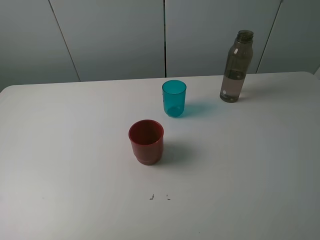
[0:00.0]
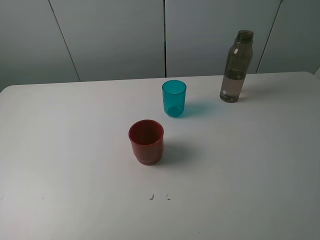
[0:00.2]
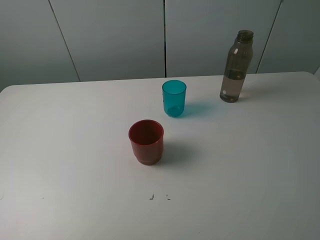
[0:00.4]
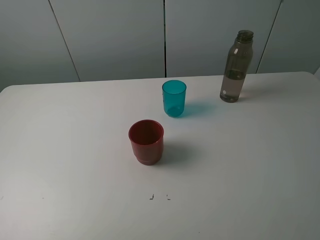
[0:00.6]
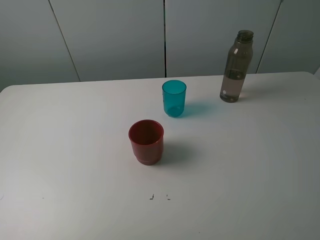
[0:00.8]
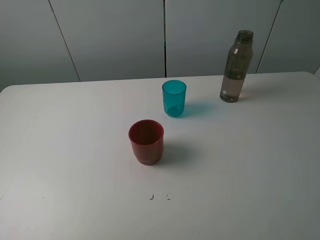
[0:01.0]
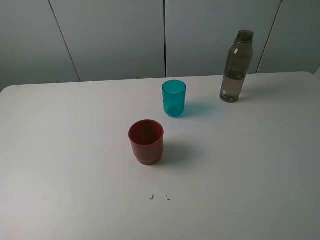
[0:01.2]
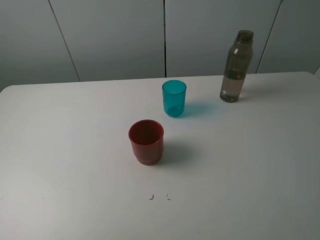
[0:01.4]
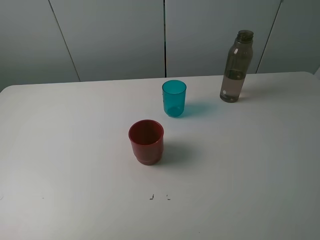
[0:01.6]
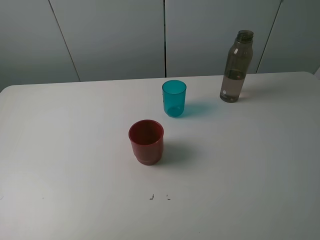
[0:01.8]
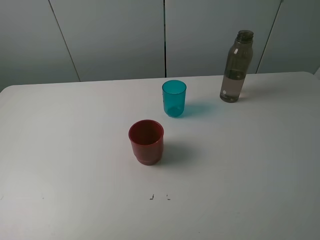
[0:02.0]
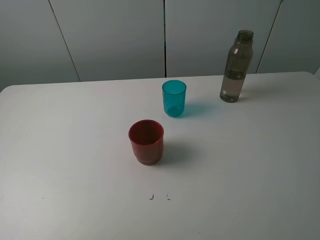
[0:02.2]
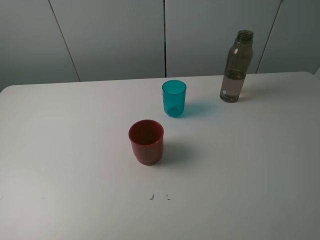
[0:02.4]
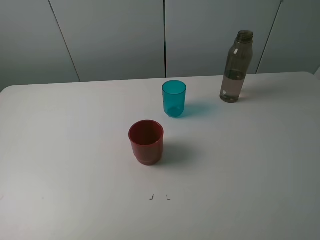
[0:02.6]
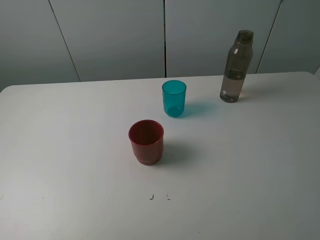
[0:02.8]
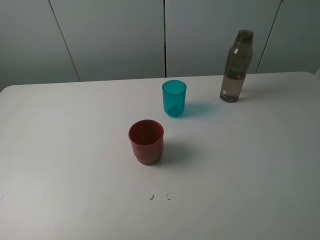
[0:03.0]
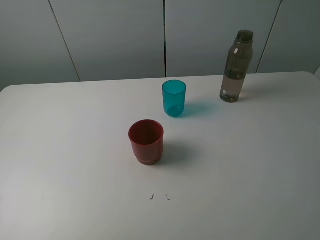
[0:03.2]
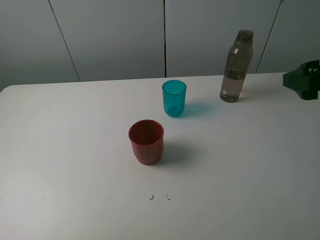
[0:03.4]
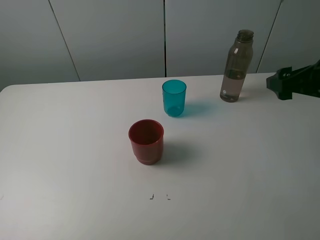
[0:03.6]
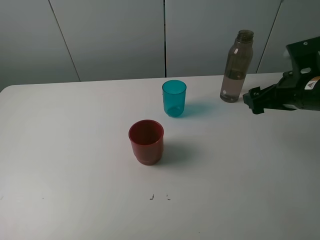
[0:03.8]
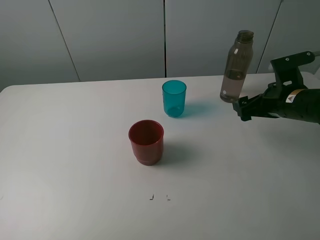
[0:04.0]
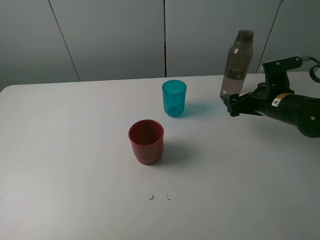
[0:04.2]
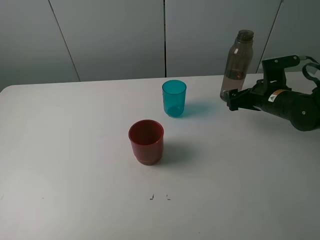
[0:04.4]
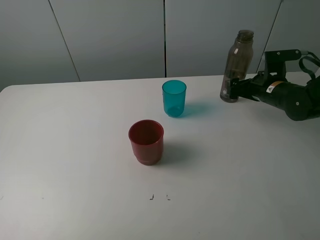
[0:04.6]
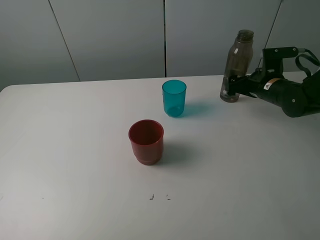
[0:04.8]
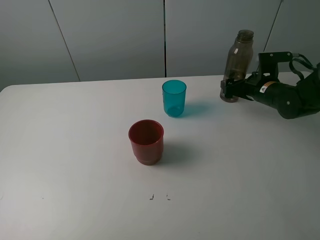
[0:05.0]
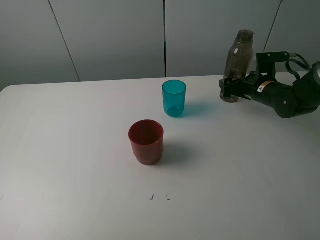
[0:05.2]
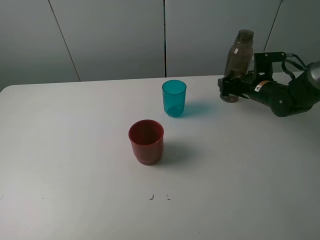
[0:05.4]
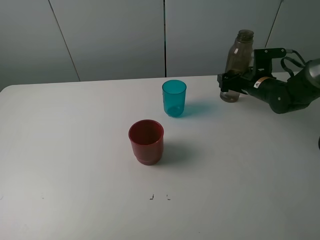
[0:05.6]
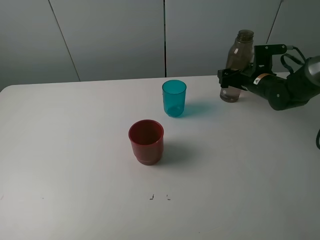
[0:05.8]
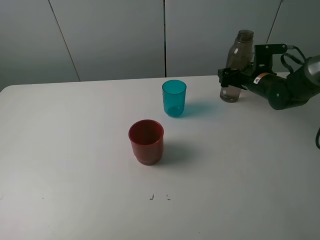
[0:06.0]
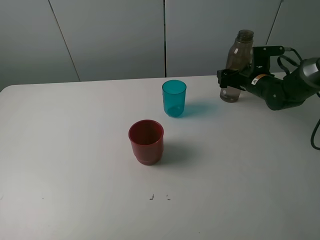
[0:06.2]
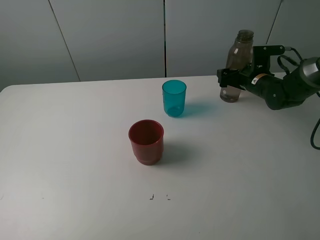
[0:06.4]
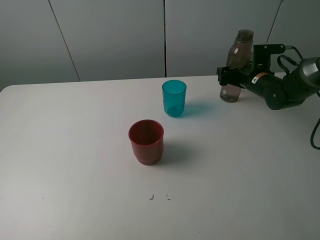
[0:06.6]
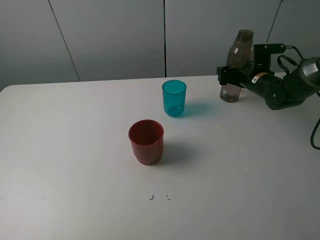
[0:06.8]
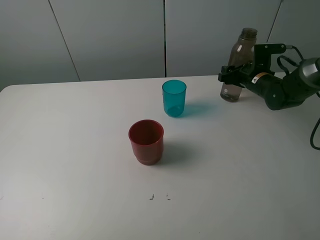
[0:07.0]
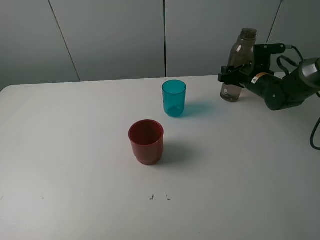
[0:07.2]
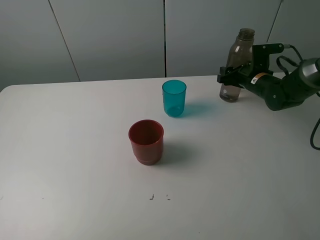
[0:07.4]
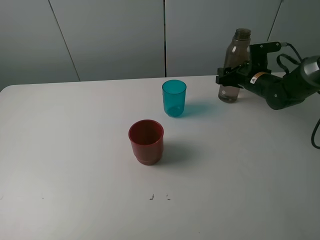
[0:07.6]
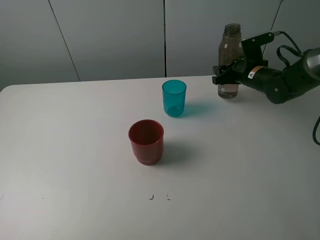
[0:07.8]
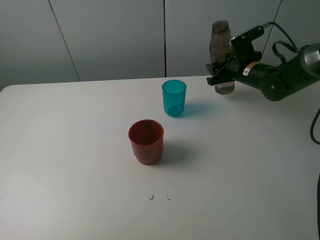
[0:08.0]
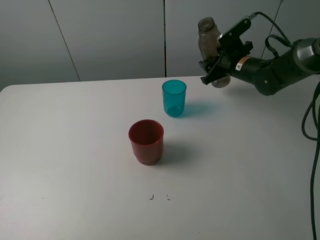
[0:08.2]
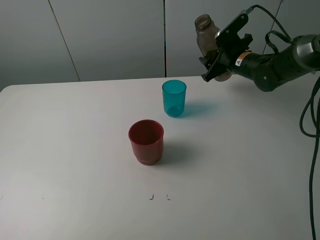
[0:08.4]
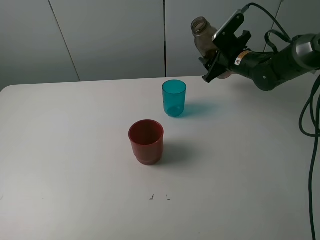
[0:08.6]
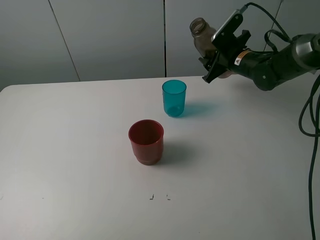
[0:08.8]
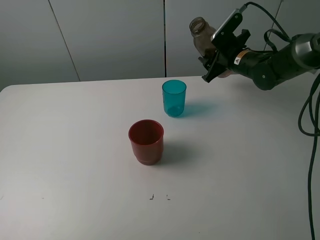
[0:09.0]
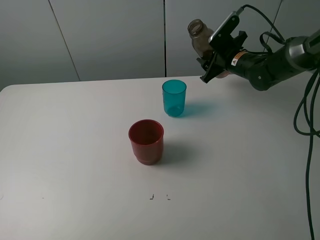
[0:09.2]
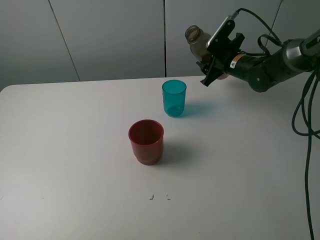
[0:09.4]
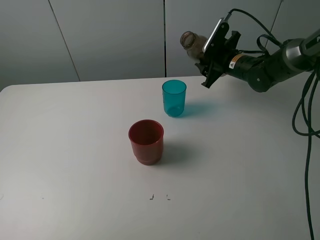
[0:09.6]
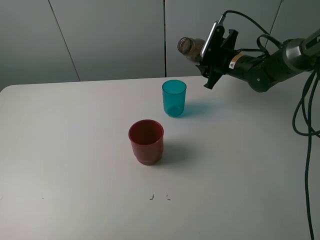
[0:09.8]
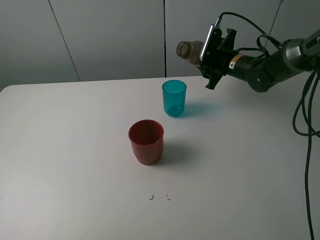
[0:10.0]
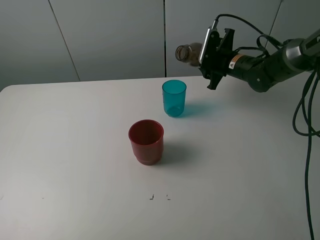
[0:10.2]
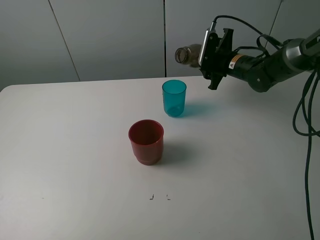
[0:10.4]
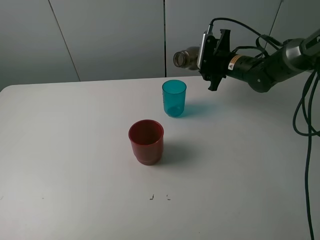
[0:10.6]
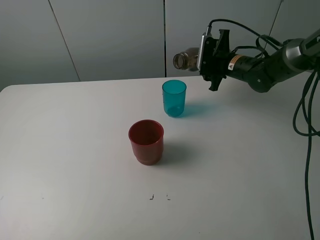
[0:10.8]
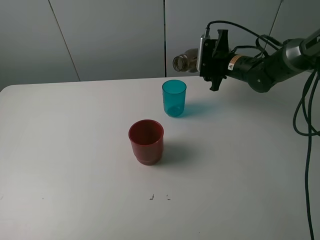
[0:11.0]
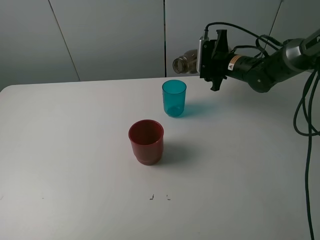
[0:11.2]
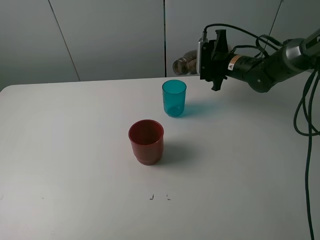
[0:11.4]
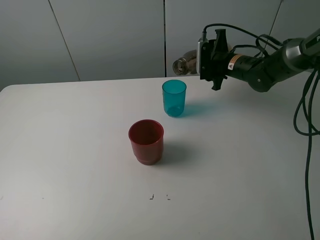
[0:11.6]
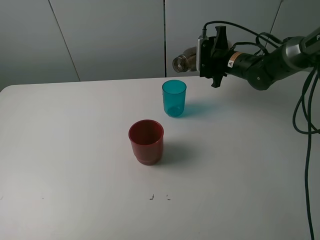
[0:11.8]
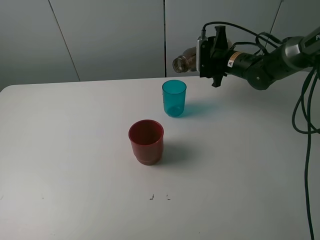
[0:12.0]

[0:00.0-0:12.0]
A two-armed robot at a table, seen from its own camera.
Task of the whole recording: pick up the bottle and pour water into the cup, then pick up the cup containing water and pour it into another cup.
Step, 0:00.0 to 0:07.2: Grasp the brown bottle with the right gripper.
0:00.0 to 0:01.6: Both grippers stay put.
0:03.0 to 0:04.4: The right gripper is displaced forward and downward by some 35 cm.
0:04.4 to 0:06.0: The right gripper moves forward, approximately 10 cm.
0:06.0 to 0:07.6: The right gripper closes up.
0:07.6 to 0:09.0: The right gripper heads to the left, covering roughly 5 cm.
0:10.4 to 0:12.0: There are only small adjustments of the grippers.

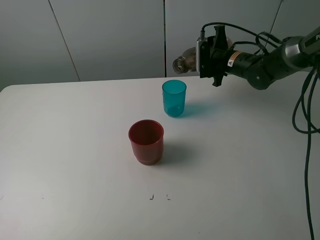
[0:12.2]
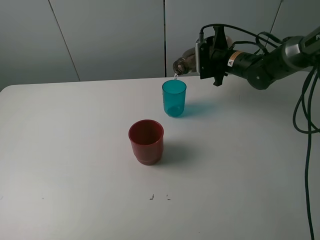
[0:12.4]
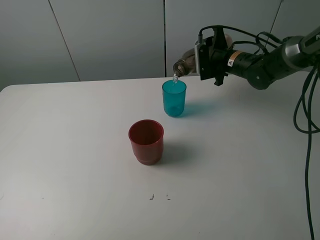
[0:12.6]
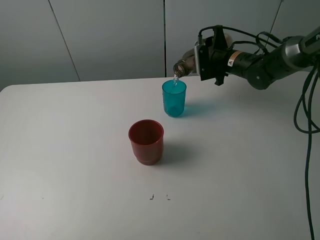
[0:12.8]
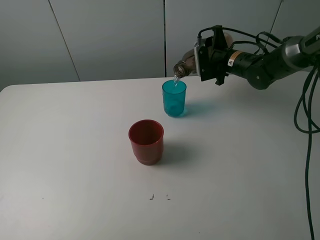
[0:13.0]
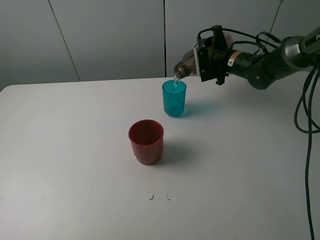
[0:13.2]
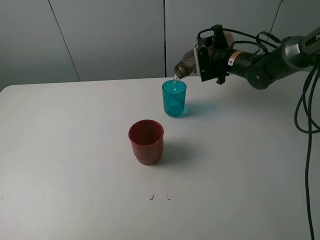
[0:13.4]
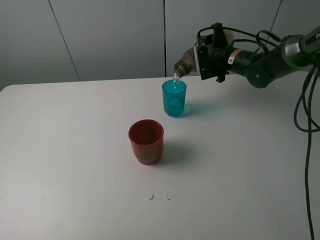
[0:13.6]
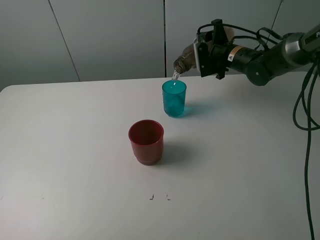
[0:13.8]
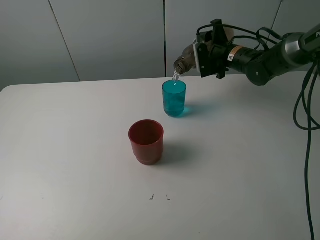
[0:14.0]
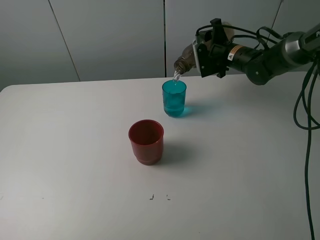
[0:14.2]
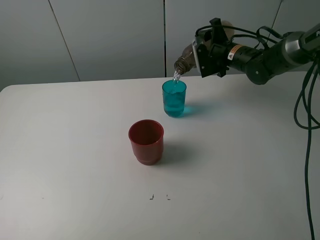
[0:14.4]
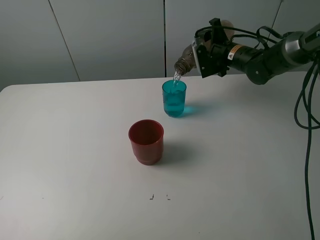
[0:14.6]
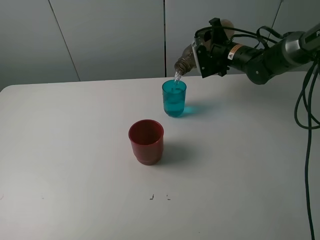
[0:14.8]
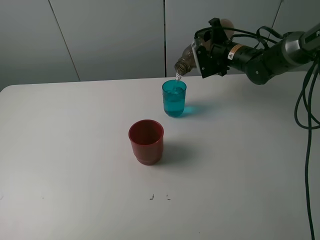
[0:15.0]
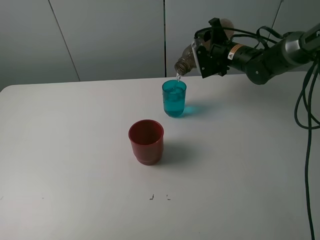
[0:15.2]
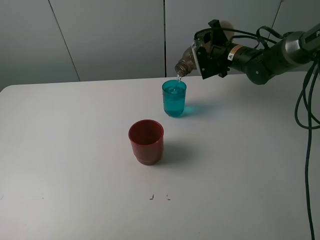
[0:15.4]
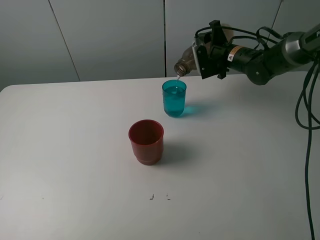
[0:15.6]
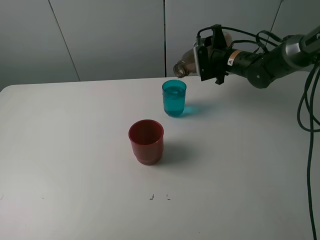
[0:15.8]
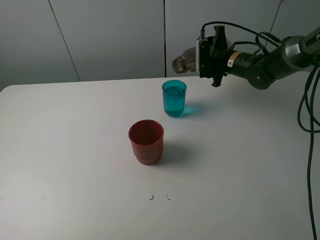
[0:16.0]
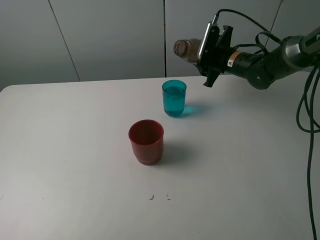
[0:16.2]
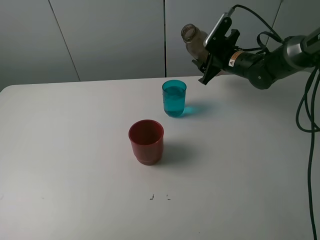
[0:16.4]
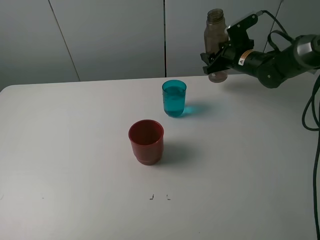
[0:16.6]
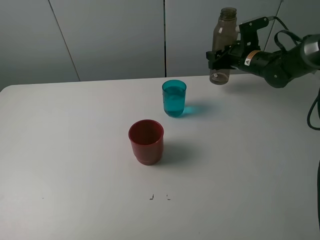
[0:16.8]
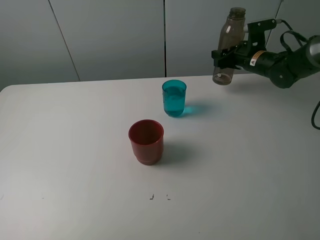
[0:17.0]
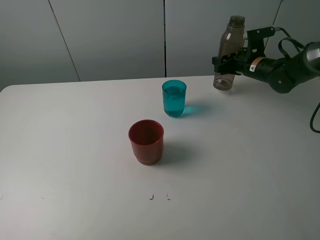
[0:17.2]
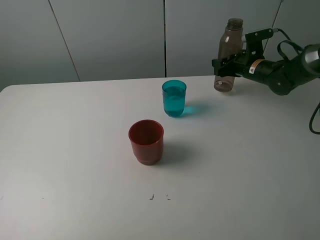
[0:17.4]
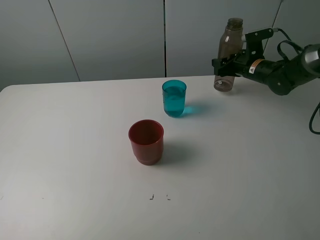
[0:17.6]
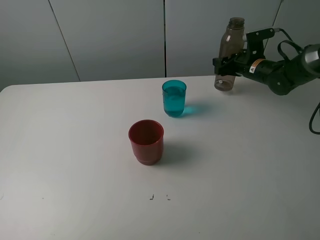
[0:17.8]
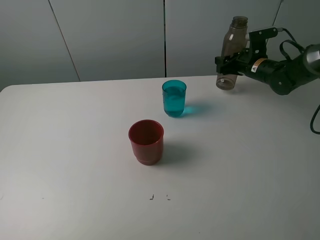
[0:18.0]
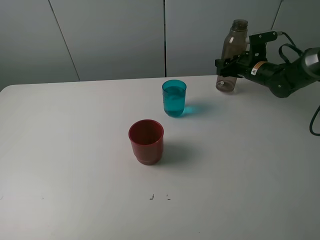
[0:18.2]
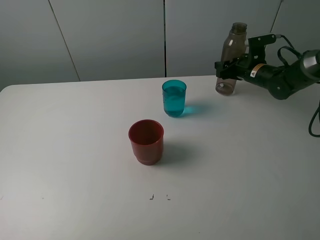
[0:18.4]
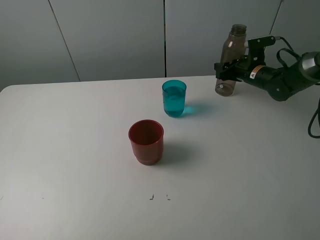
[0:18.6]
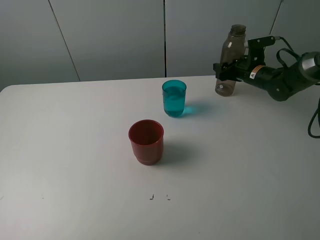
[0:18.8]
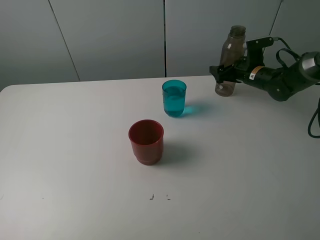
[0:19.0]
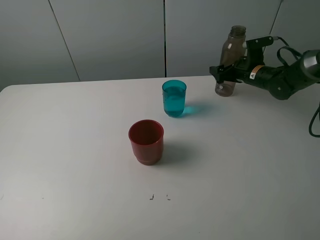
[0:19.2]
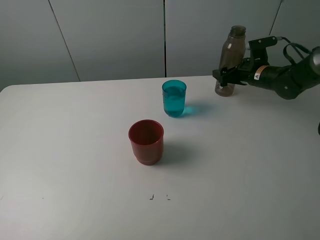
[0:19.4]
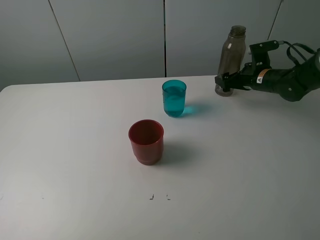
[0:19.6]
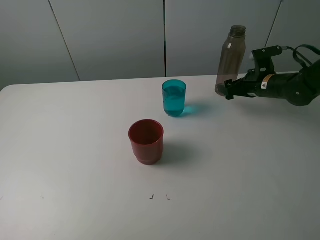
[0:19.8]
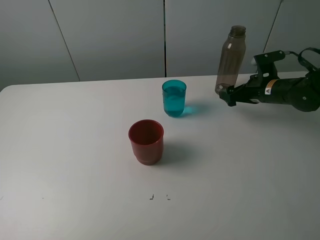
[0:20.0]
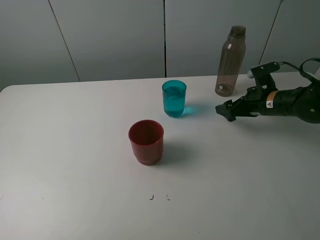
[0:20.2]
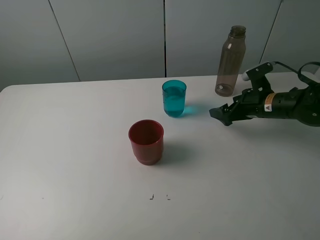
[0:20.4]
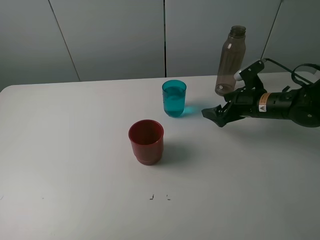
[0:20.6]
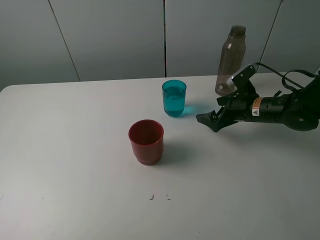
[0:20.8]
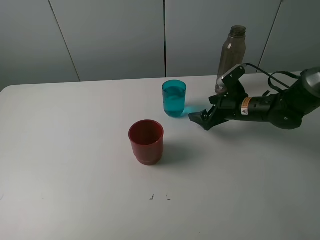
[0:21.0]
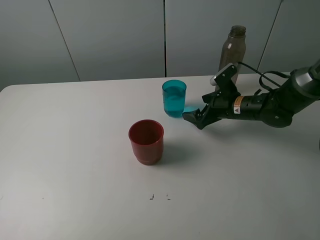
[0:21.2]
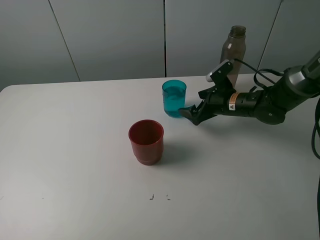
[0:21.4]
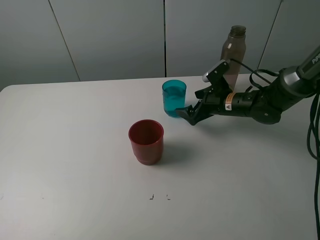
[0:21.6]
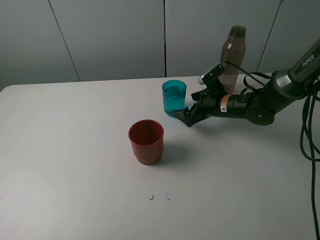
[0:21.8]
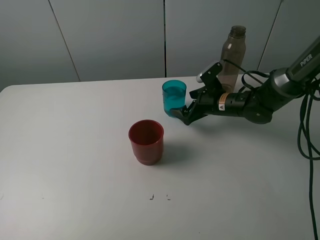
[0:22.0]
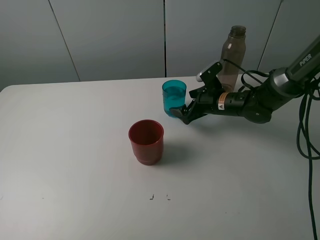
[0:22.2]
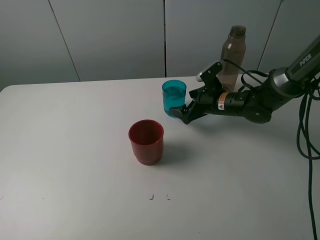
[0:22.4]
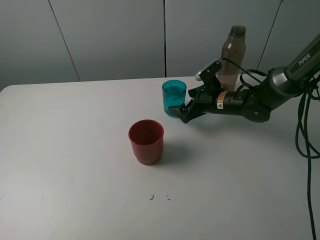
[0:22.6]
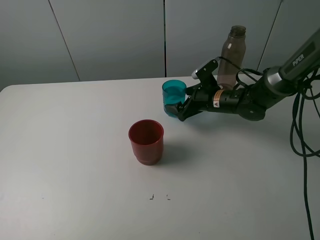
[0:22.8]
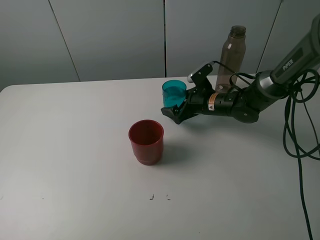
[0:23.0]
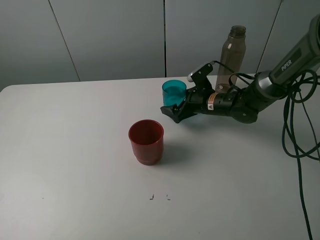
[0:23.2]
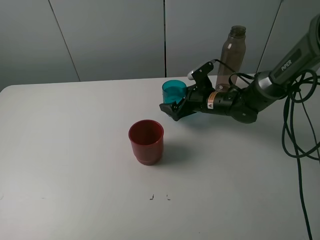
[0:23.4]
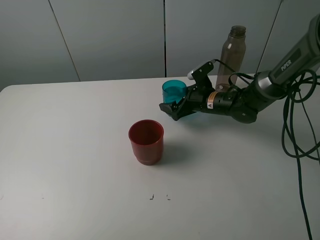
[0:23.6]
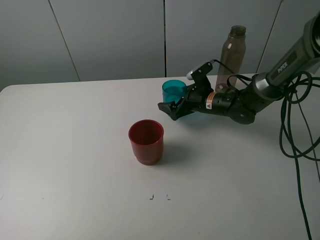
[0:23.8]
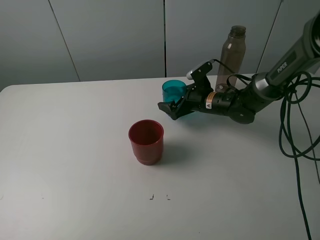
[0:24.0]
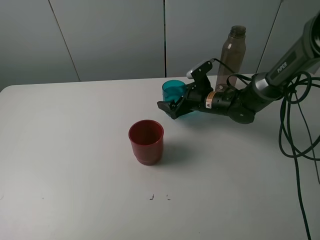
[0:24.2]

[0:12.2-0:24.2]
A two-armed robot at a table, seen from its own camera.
Task of the whole recording: pick up the bottle and pour water into the cup, then pick up the cup containing water and pour it into another cup.
Step, 0:12.2 to 0:16.0: Pour water from brown bottle to blue cup with the right gripper.
Step, 0:16.2 to 0:19.4: Place the brown bottle with the right gripper.
0:12.2 to 0:15.2: There are only small adjustments of the grippers.
0:16.6 to 0:18.2: The right gripper moves approximately 5 cm.
0:18.2 to 0:19.8: The right gripper moves backward, some 5 cm, and opens up.
0:19.8 to 0:21.2: The right gripper shifts roughly 10 cm to the left.
0:21.2 to 0:22.6: The grippers make only small movements.
0:22.6 to 0:24.2: The grippers make only small movements.
